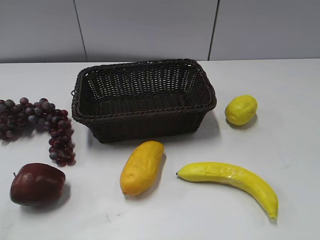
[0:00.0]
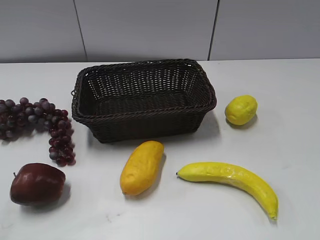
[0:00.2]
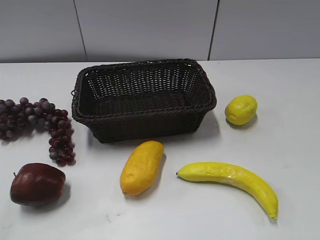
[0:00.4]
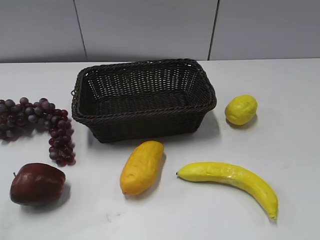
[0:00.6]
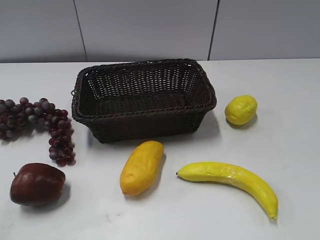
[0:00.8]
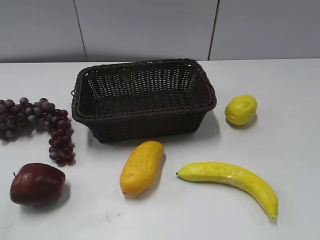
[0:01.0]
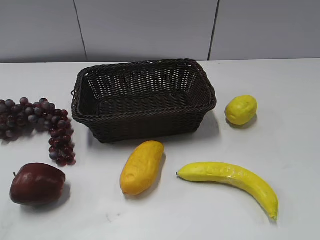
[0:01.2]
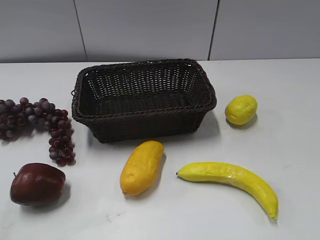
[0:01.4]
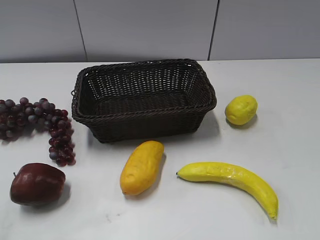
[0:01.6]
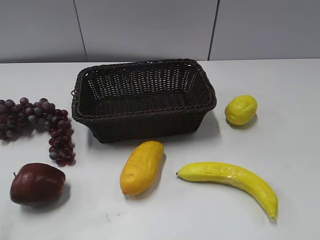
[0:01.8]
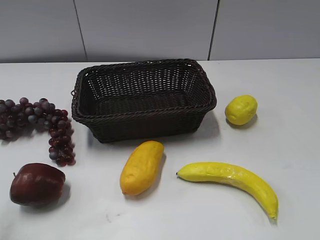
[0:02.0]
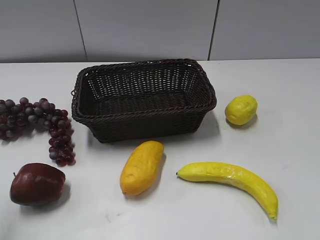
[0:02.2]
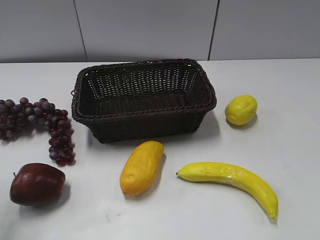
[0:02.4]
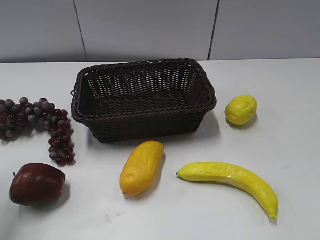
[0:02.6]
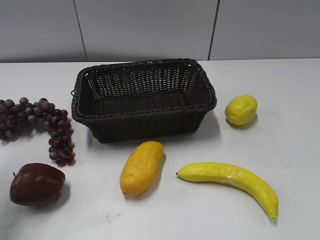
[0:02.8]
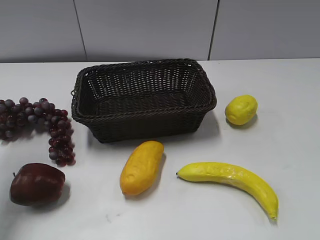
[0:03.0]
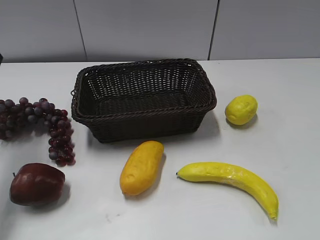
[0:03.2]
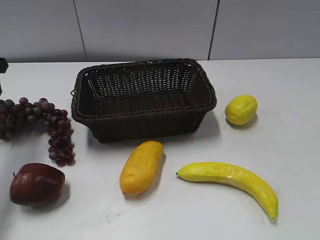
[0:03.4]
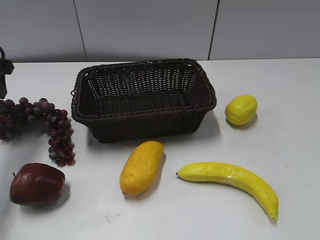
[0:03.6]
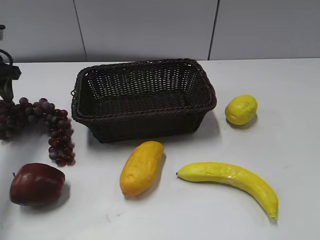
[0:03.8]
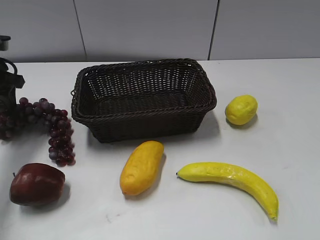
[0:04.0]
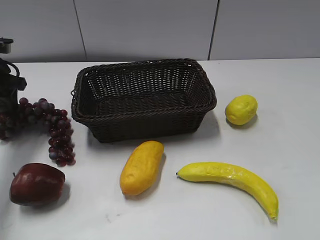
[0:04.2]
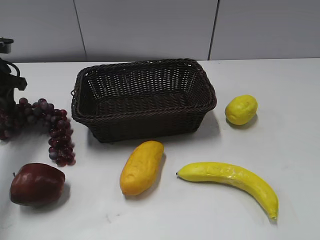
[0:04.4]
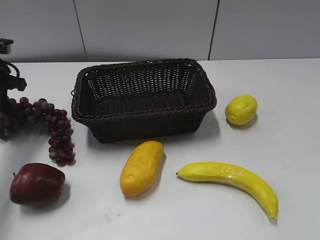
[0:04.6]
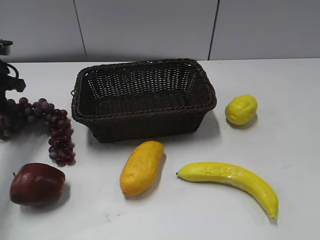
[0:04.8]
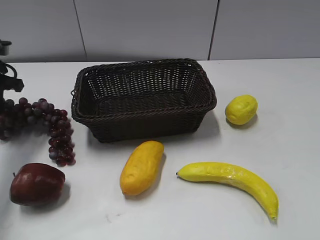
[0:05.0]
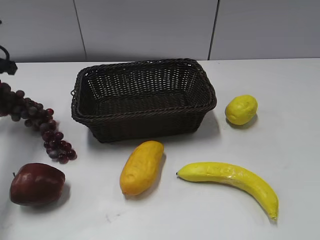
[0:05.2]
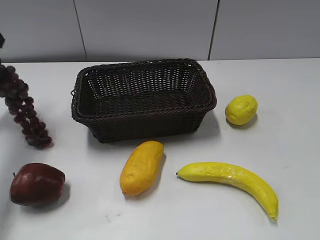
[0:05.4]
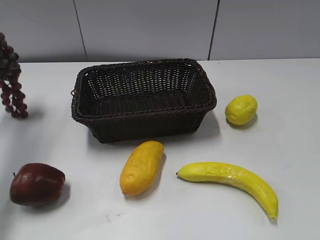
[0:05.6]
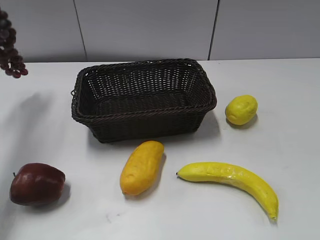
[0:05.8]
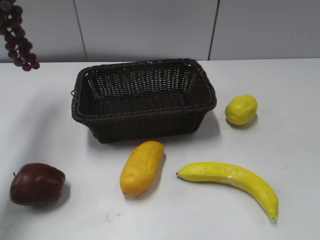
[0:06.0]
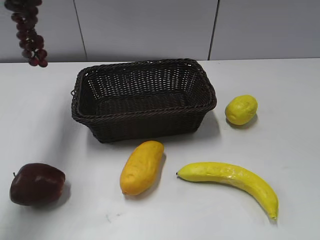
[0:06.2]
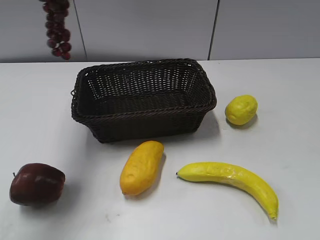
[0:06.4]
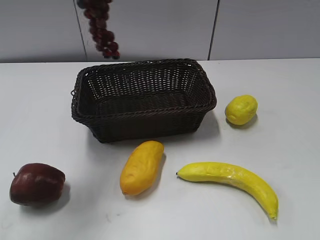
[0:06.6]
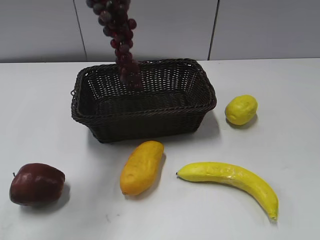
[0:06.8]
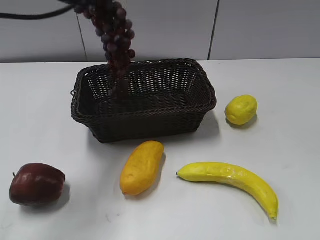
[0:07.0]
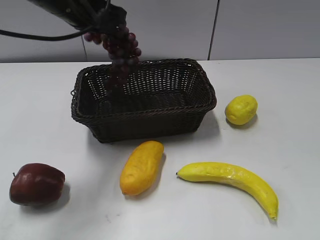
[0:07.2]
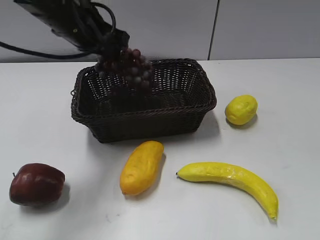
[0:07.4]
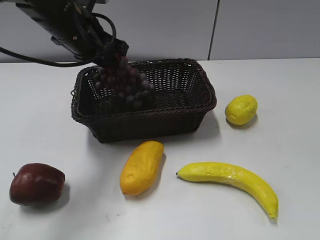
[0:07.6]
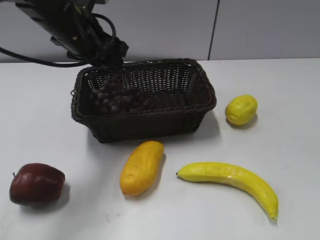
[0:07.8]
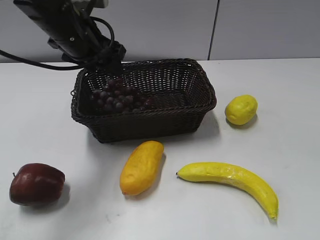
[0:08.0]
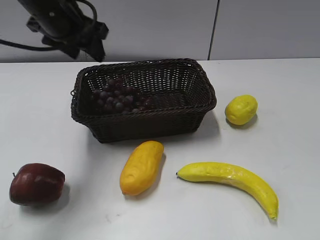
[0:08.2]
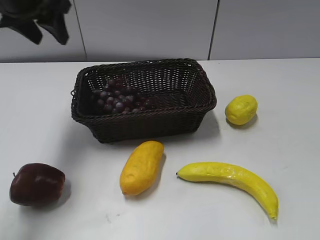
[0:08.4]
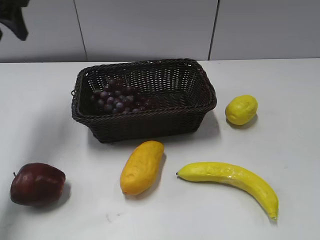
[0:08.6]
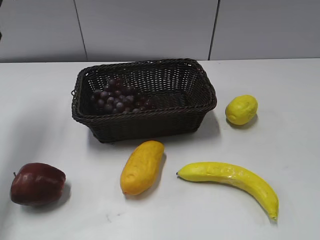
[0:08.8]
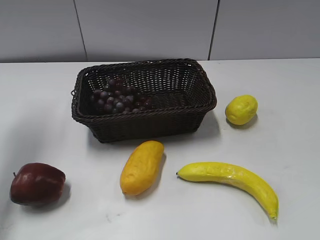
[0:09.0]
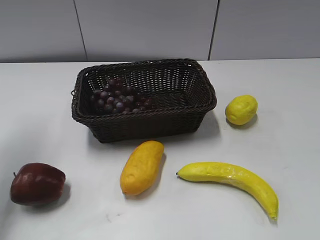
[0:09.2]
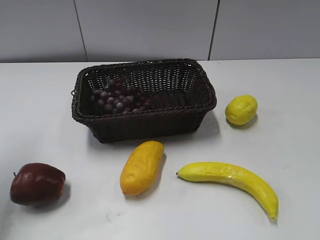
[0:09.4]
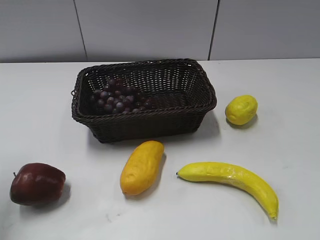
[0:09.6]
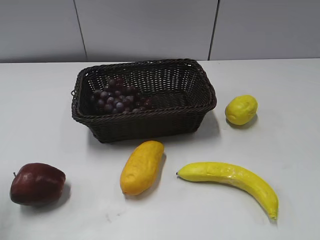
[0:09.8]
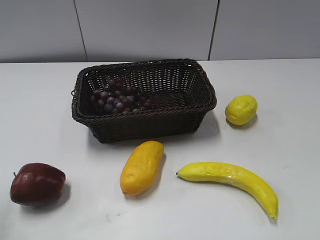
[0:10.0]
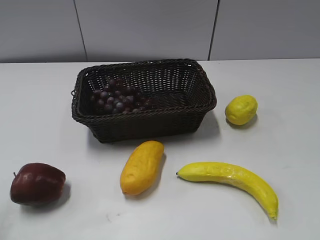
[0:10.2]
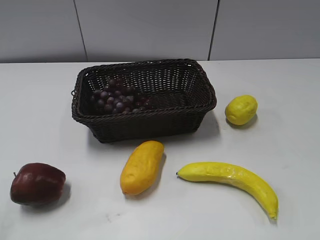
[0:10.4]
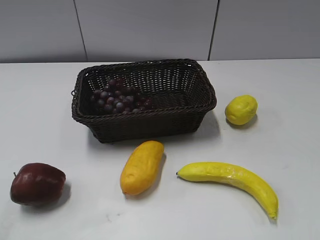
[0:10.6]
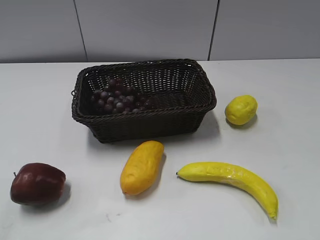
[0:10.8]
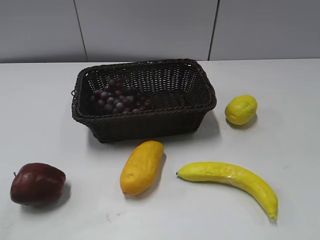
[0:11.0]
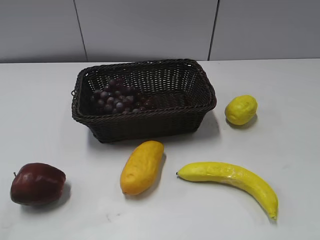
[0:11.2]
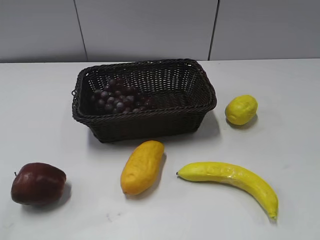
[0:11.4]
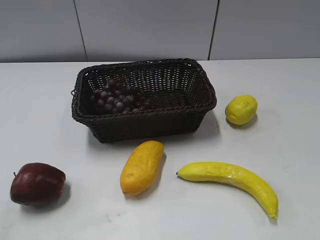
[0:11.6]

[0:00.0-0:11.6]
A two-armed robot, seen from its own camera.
Step, 0:03.2 to 0:05.4: Grasp the grape with left gripper.
Step, 0:05.6 to 0:07.8: Place the grape in the basket with left gripper.
0:01.4 to 0:02.8: The left gripper heads forward, covering some 20 cm.
0:02.8 to 0:04.4: The left gripper travels forward and downward by approximately 20 cm.
0:04.4 to 0:05.8: The left gripper is displaced upward by about 20 cm, and closes its fingers.
0:05.8 to 0:07.2: The left gripper is displaced to the right and downward by about 20 cm.
0:07.2 to 0:08.8: The left gripper shifts some 20 cm to the left, and opens up.
0:08.8 to 0:10.2: The left gripper travels backward by approximately 25 cm.
